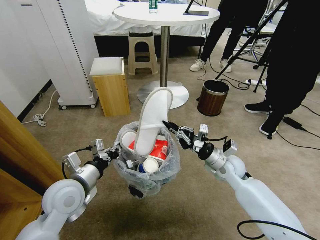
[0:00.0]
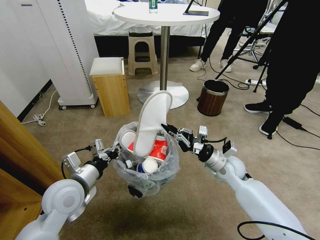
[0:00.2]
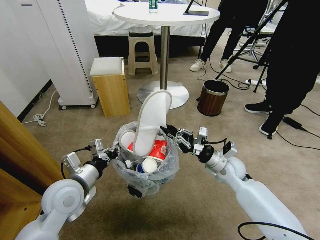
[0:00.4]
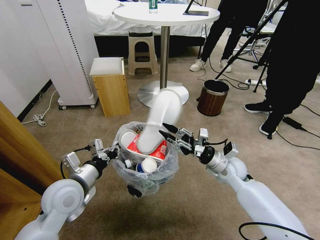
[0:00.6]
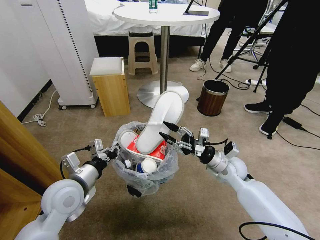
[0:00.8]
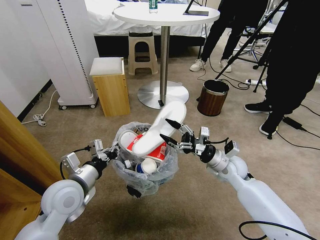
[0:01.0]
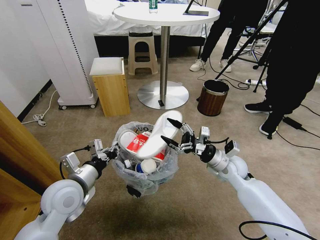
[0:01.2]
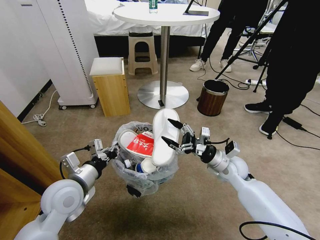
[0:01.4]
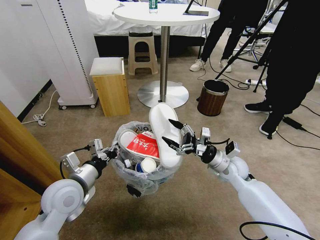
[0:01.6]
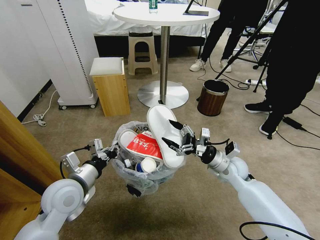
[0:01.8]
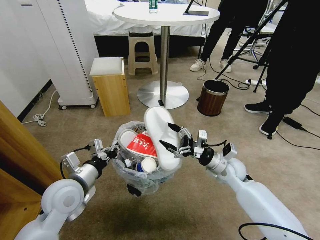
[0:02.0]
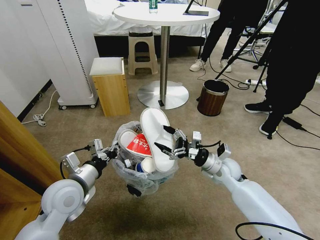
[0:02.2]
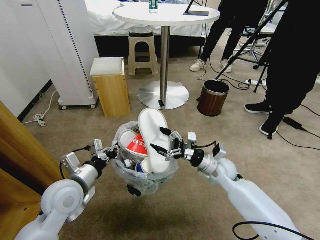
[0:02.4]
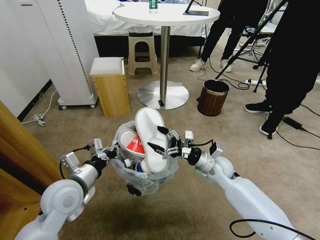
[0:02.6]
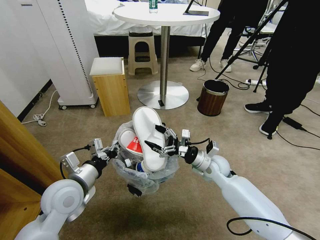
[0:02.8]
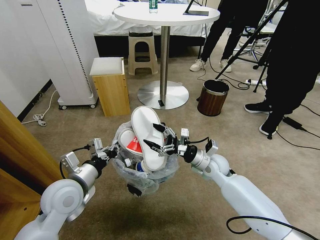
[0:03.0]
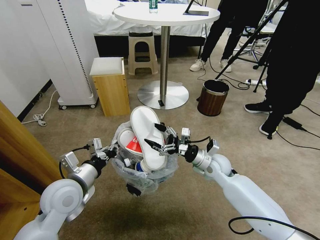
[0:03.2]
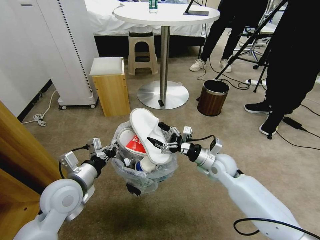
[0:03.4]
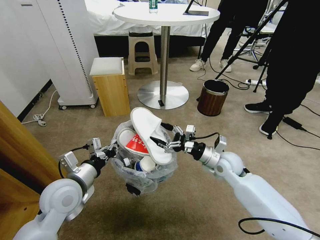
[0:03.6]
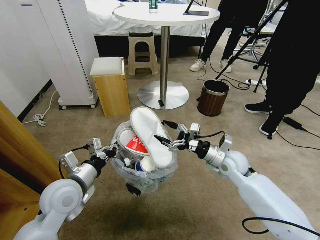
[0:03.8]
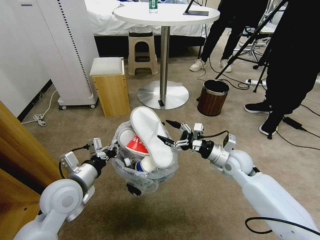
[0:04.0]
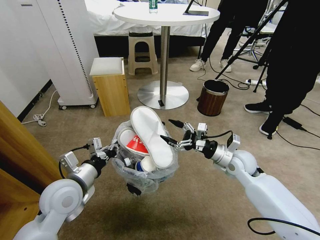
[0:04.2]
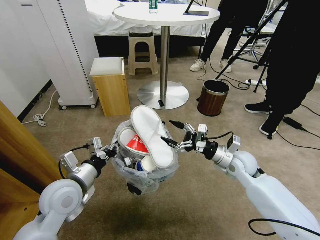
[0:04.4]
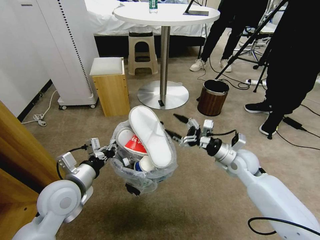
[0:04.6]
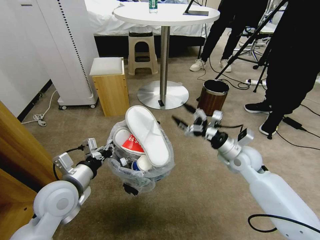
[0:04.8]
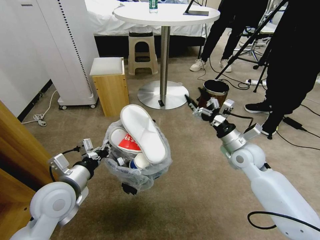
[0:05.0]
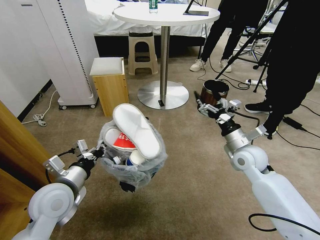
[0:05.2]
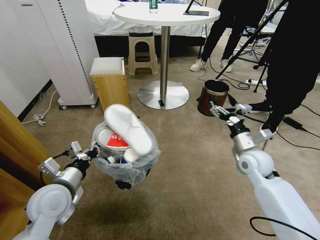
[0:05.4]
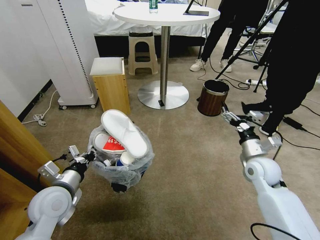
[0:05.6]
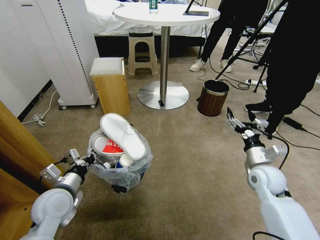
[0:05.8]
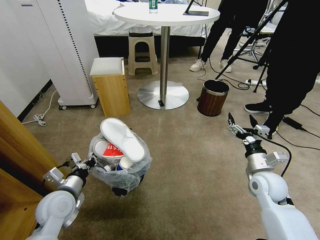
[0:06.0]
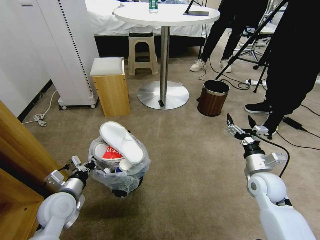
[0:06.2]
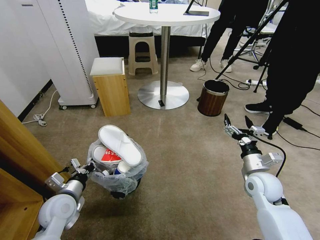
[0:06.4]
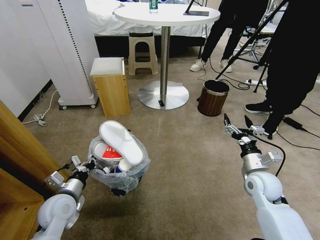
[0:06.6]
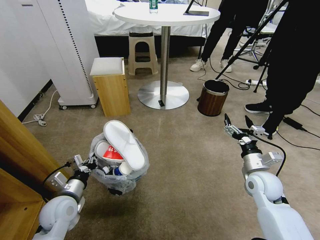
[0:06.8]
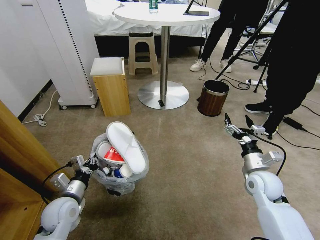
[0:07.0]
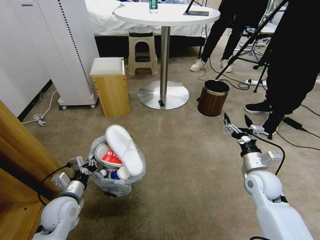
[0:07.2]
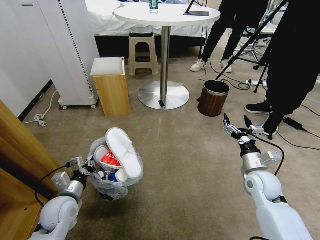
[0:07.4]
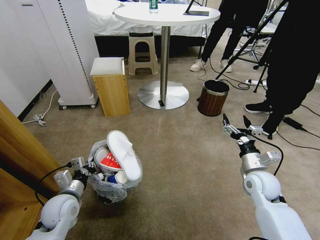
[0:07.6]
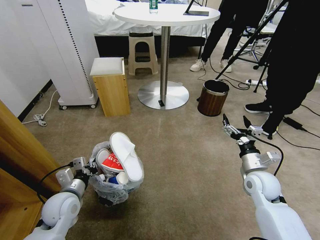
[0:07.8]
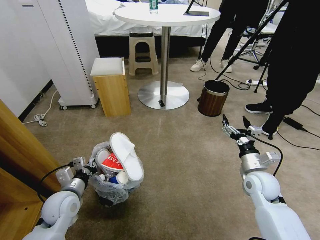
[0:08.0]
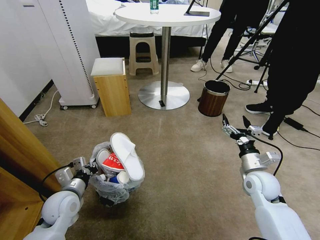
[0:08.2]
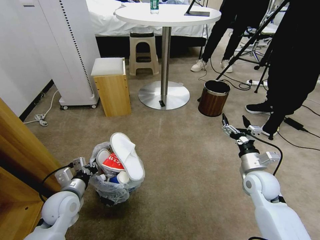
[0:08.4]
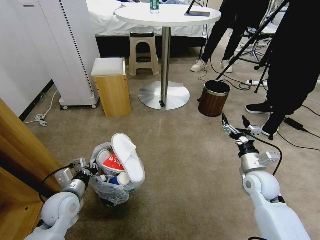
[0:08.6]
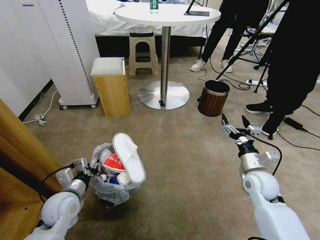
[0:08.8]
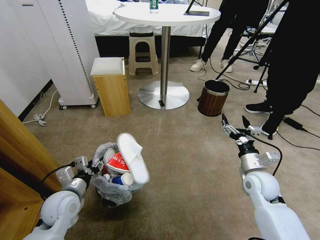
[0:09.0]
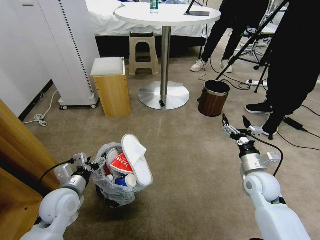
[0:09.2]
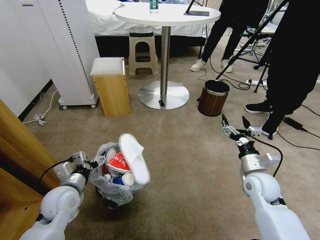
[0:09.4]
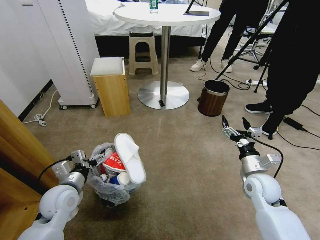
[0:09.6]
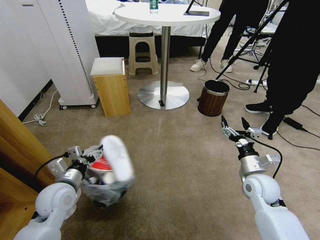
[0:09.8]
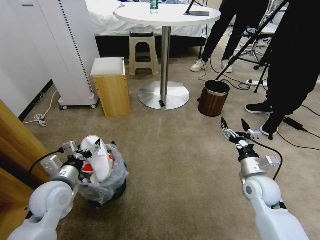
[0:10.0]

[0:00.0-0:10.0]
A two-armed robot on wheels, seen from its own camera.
Task of the whole recording: Pick up the trash bin and place the garbage on the floor into it.
0:00.0 to 0:01.4: The right gripper opens its fingers.
0:01.4 to 0:02.8: The right gripper changes place by roughly 5 cm.
0:02.8 to 0:04.2: The right gripper is displaced to the right and upward by approximately 10 cm.
0:04.2 to 0:05.8: The right gripper heads to the right and backward, covering about 10 cm; the left gripper moves about 5 cm.
0:05.8 to 0:07.2: The left gripper shifts roughly 5 cm downward.
0:07.2 to 0:08.6: The grippers stay close to where they were, moving slightly.
0:08.6 to 0:10.0: The left gripper is displaced upward by about 5 cm, and opens its fingers.

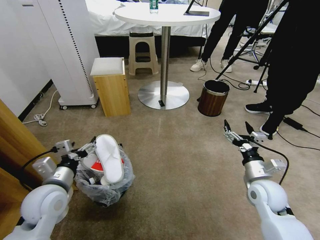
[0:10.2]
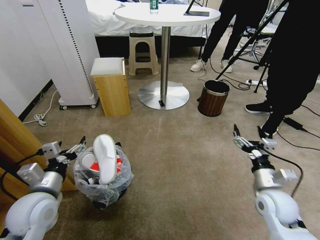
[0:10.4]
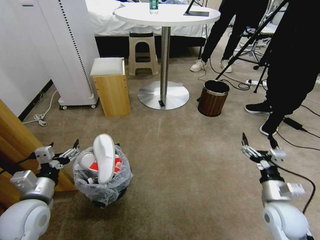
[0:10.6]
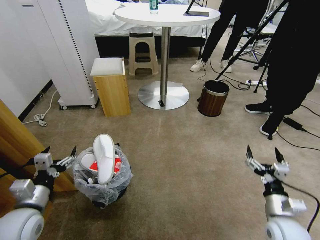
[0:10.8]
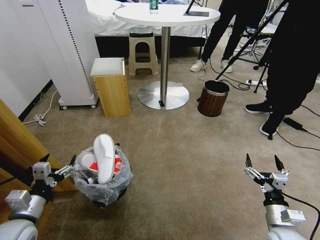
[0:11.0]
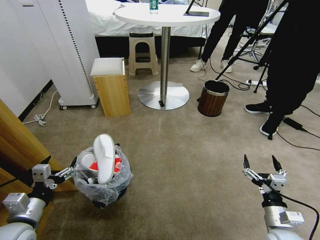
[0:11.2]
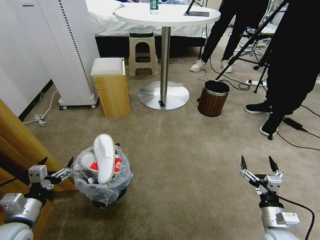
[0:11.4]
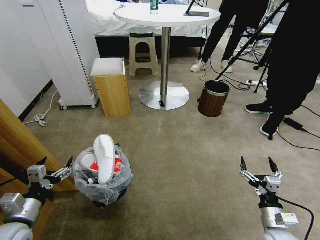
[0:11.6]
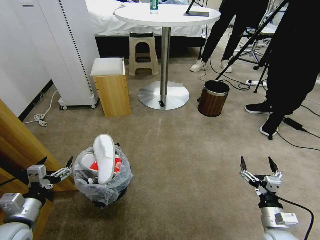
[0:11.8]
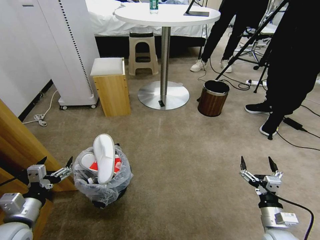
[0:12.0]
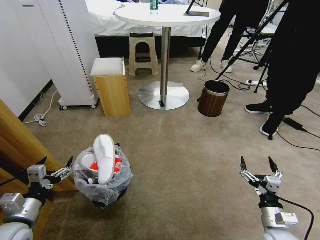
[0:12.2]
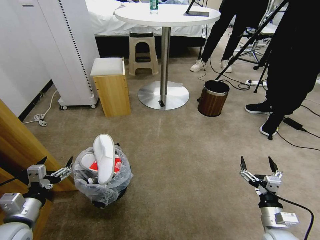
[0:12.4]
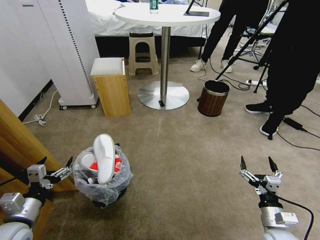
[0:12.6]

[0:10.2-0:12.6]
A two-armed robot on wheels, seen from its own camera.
Task of the whole recording: Pick up the trash bin and place the garbage on the floor into it.
0:10.2 to 0:11.4: The right gripper travels backward and downward by roughly 15 cm. Meanwhile the left gripper moves to the left and backward, roughly 10 cm.
0:11.4 to 0:12.6: The two grippers keep their place.

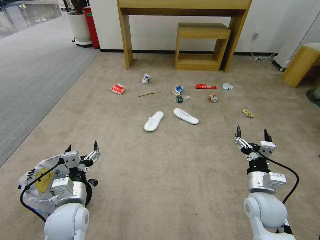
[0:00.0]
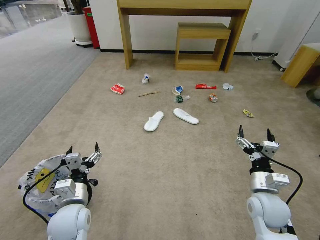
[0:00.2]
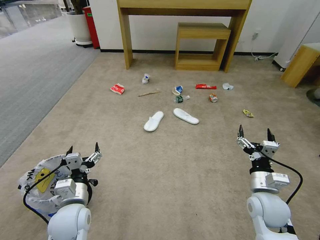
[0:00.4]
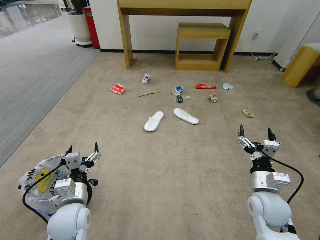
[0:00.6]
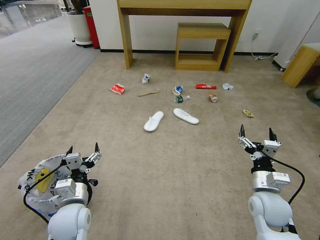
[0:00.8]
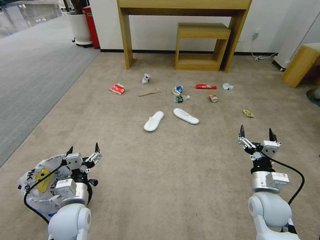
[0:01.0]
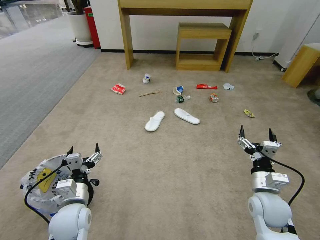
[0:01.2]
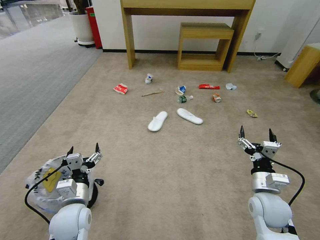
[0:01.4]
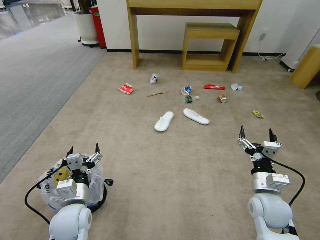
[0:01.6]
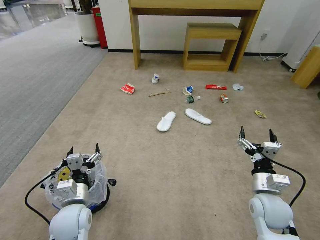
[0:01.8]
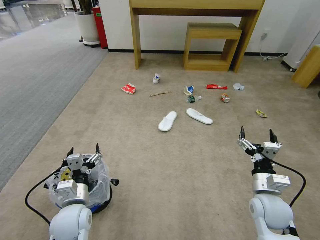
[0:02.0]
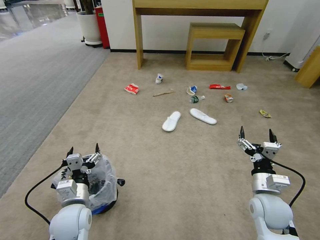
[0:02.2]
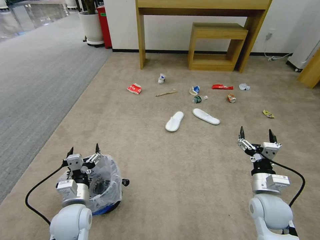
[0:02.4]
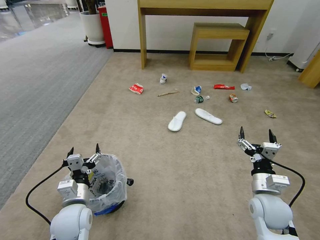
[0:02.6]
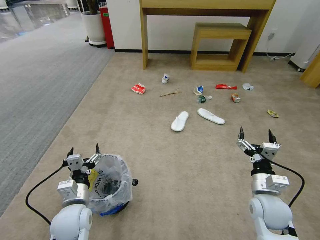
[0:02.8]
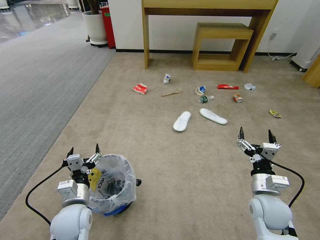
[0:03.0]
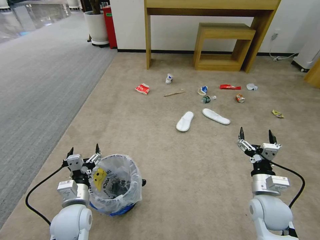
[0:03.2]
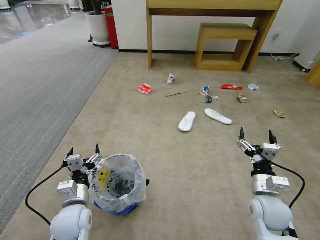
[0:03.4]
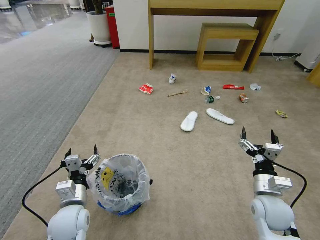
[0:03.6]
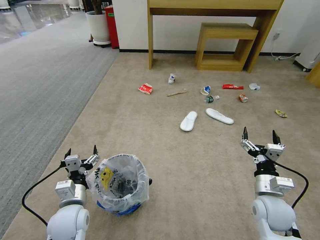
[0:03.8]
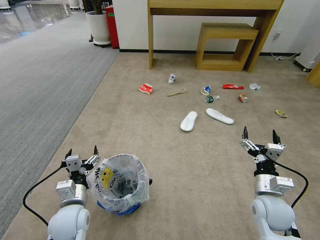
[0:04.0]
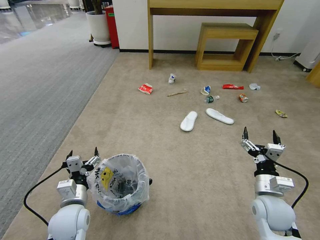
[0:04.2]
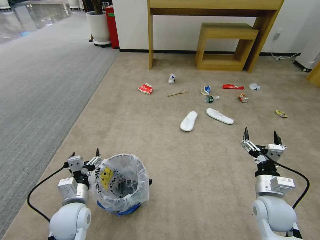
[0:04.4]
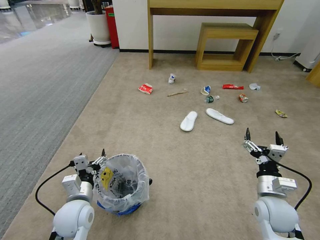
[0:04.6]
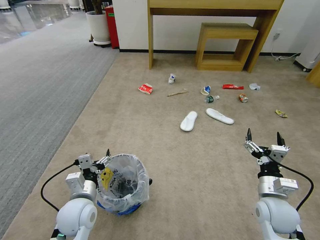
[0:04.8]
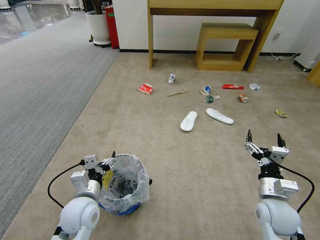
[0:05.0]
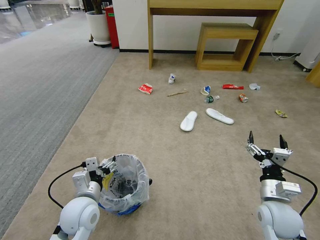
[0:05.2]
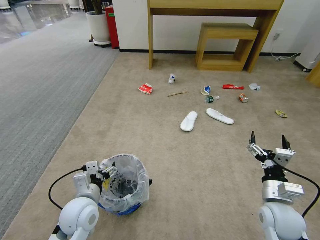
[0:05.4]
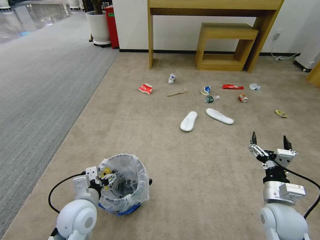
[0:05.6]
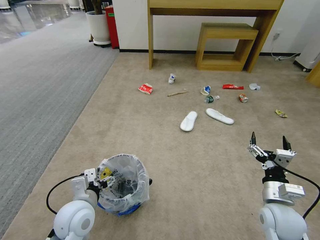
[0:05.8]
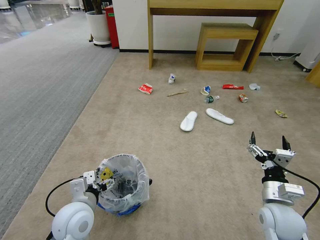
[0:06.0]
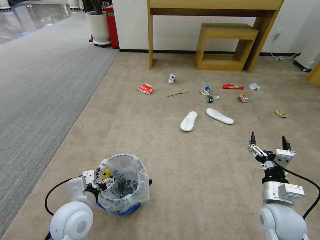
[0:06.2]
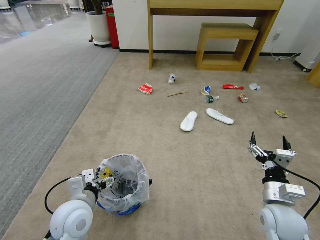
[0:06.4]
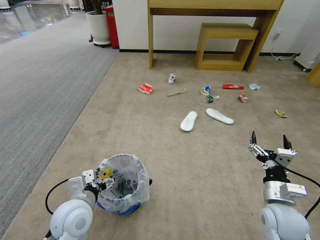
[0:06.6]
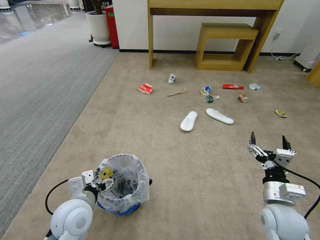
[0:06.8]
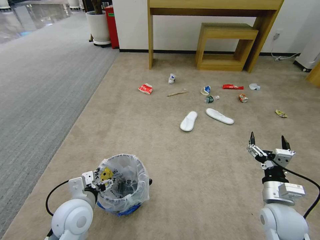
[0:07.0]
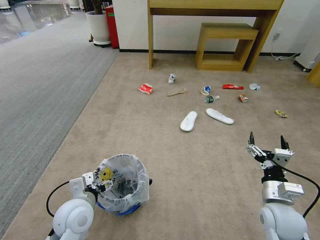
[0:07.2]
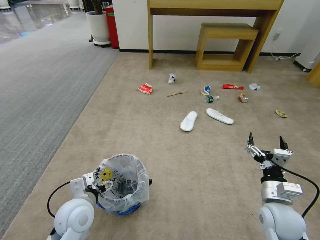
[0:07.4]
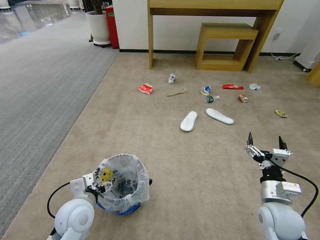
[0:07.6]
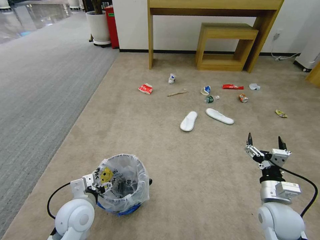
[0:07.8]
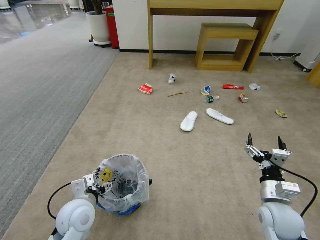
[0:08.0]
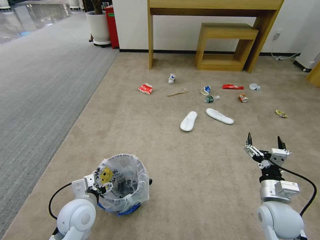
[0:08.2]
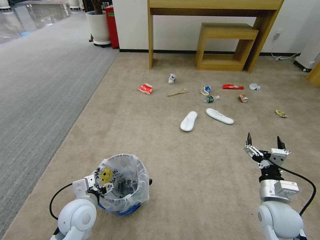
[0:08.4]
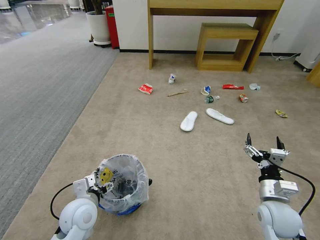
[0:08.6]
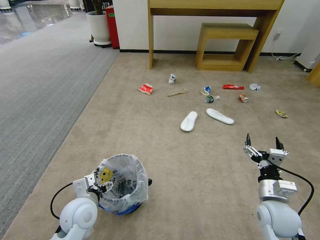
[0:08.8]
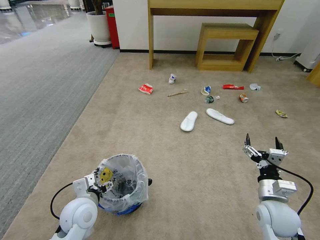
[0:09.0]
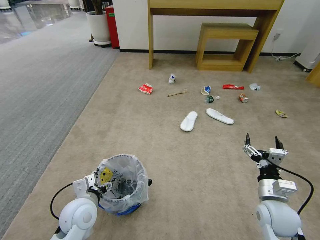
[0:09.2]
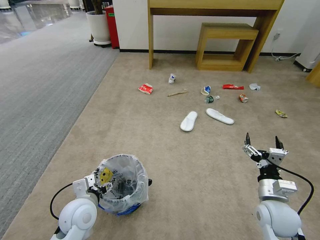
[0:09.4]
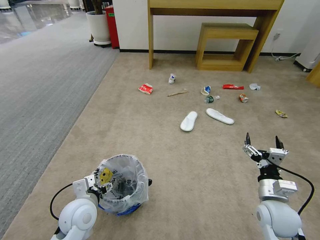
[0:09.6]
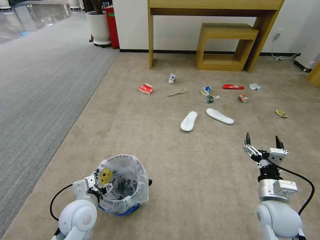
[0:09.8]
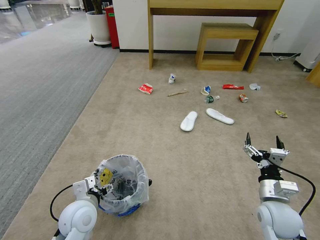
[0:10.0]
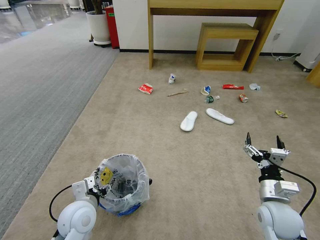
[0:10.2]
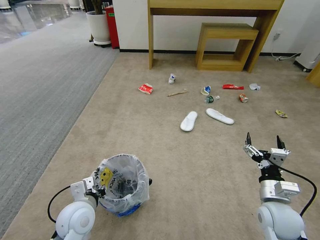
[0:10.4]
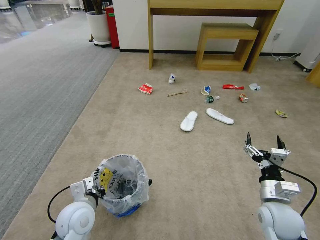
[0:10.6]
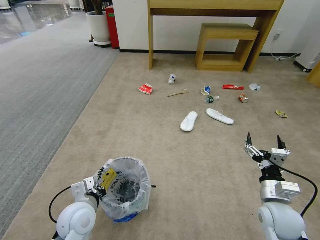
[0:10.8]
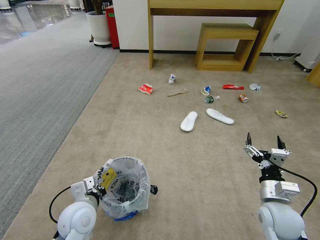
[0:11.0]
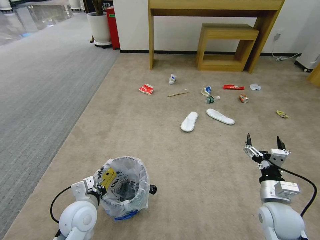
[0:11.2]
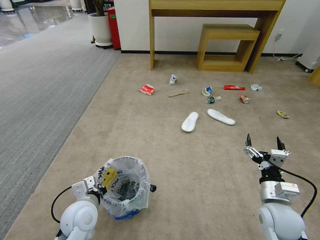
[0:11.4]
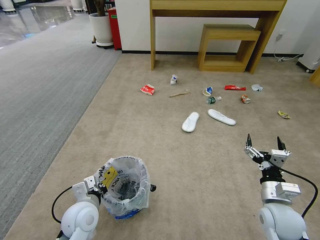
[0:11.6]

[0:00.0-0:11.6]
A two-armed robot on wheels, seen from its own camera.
Task of the whole recording: Pick up the trash bin and place the garbage on the floor into it.
0:01.4 to 0:02.8: Neither gripper changes place.
0:02.8 to 0:04.4: The grippers stay close to where they were, moving slightly.
0:05.8 to 0:08.8: There are only small adjustments of the grippers.
0:08.8 to 0:10.2: The left gripper closes.
0:10.2 to 0:11.6: The left gripper closes.
